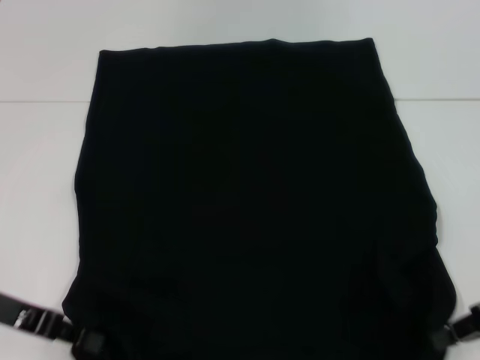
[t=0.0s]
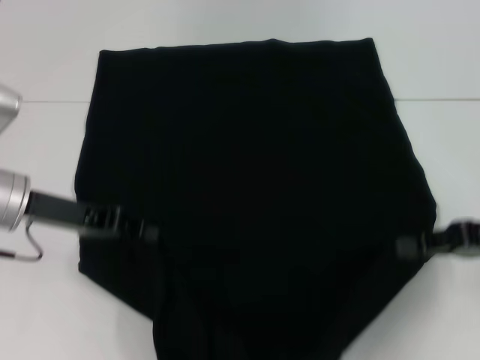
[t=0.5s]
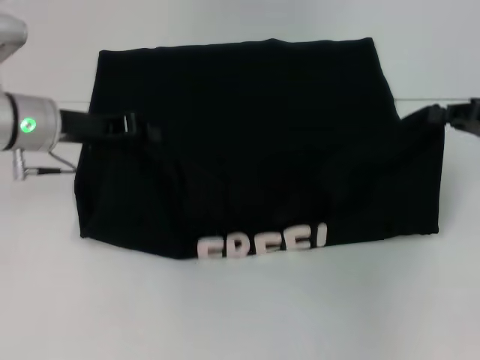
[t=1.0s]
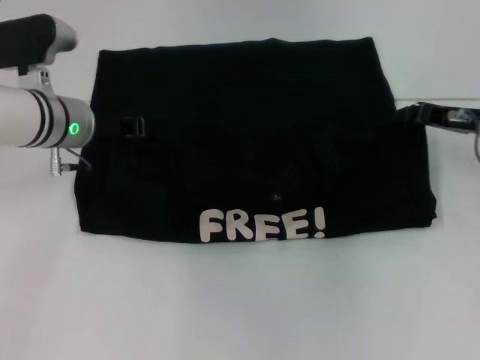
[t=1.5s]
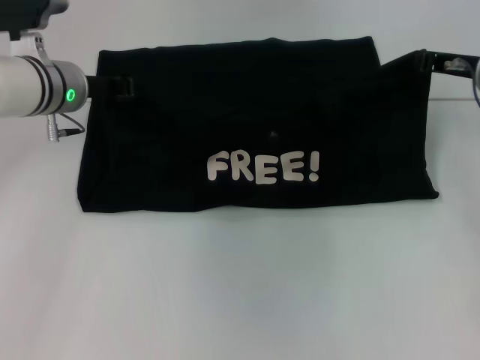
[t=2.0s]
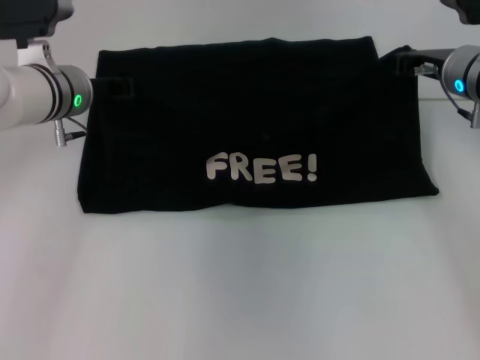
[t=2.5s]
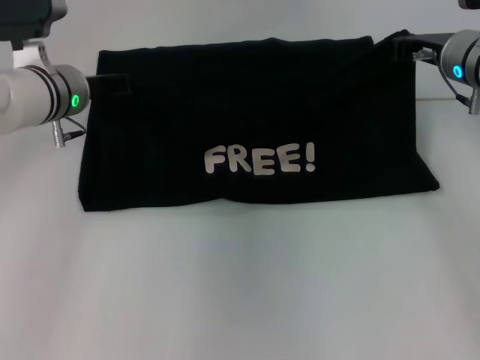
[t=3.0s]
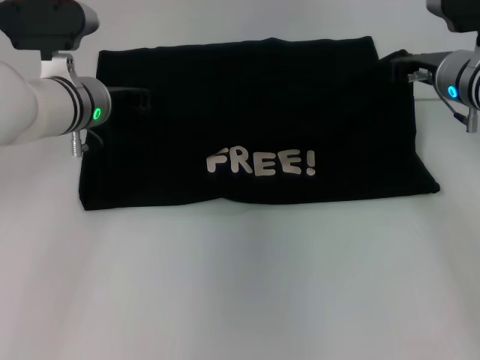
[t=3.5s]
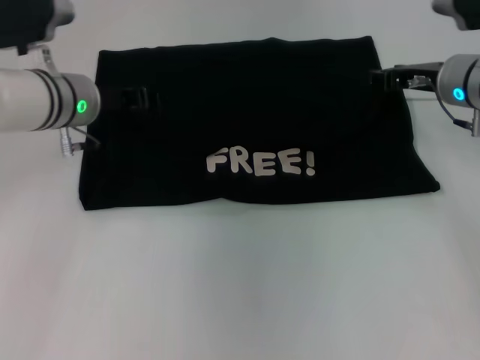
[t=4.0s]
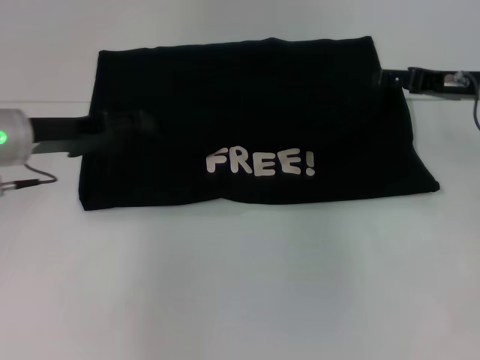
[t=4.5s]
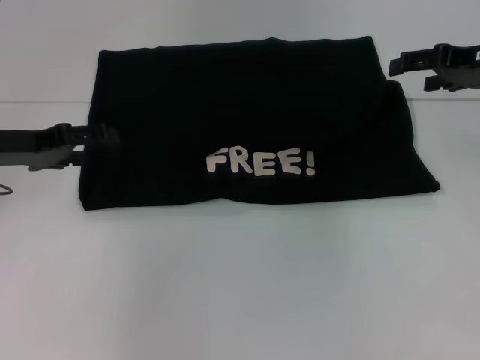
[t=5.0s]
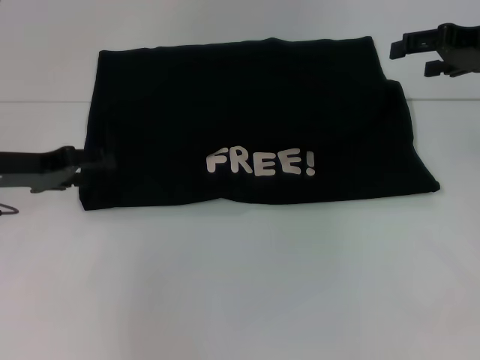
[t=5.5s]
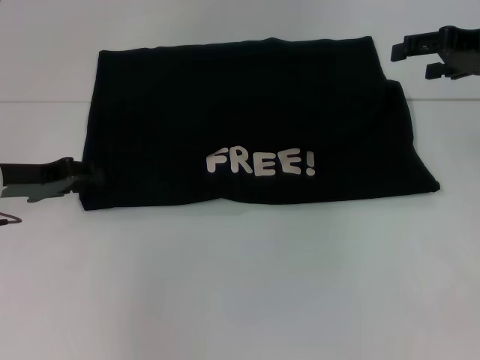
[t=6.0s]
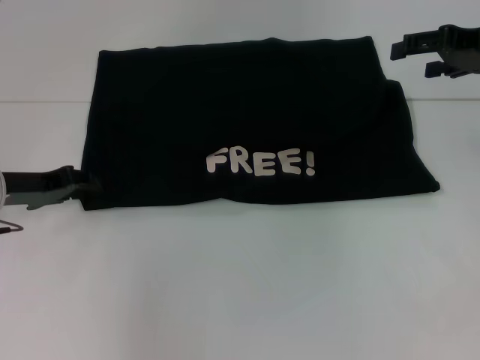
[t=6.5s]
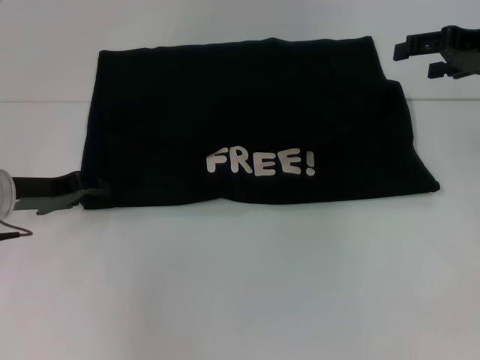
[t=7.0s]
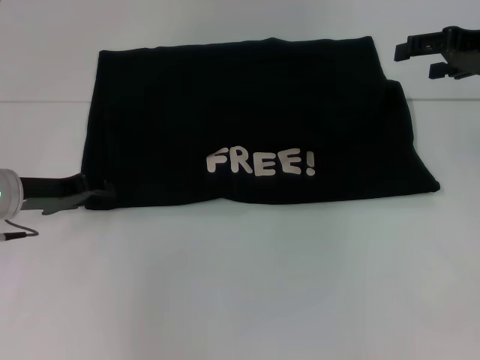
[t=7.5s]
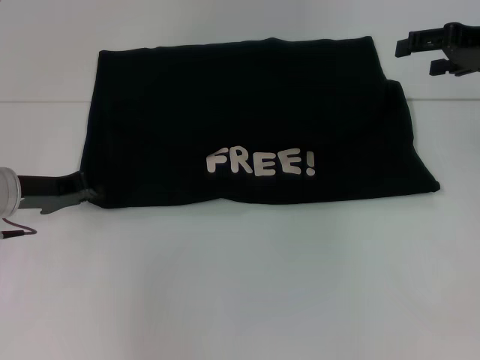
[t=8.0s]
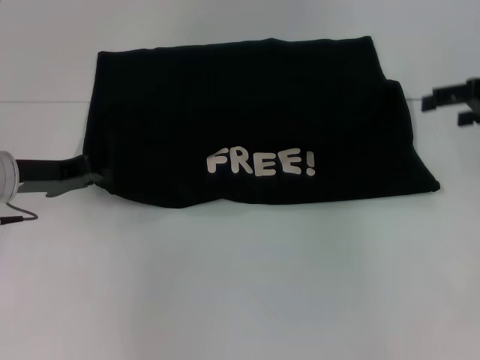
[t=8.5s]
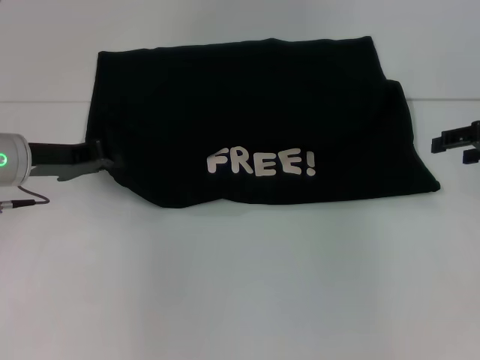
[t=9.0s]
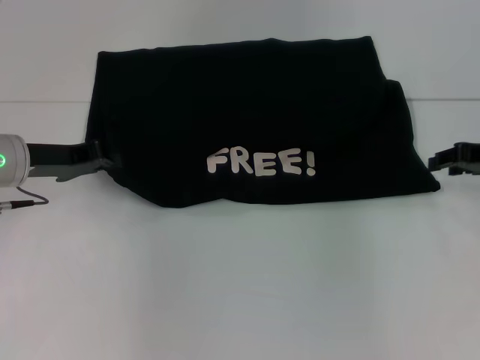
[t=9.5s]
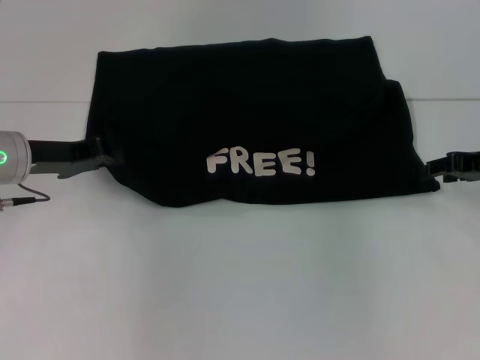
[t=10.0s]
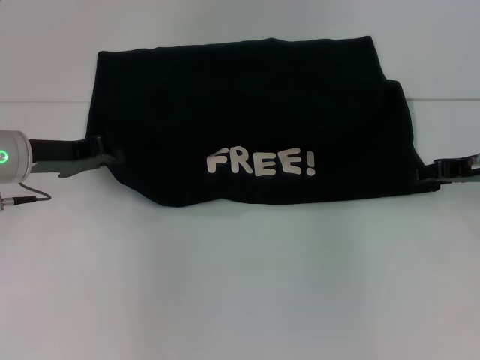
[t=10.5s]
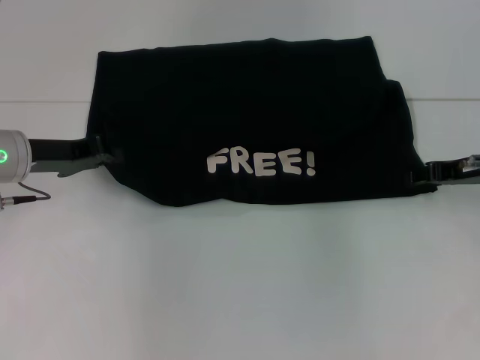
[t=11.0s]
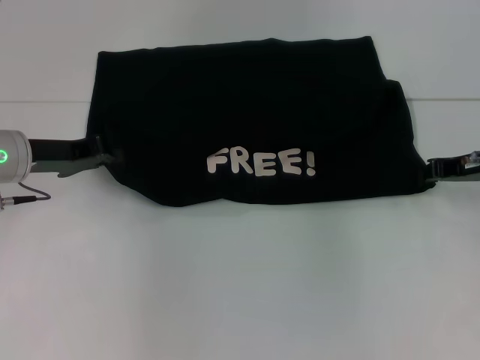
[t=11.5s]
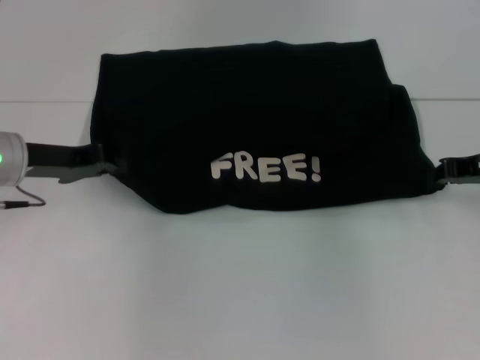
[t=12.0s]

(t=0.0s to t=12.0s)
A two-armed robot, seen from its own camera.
Step, t=0.0s - t=4.0s: Fold the clothes with your left hand.
Step, t=0.0s - t=4.0s: Fold the clothes with your right hand.
t=0.0s - t=2.0s: The right gripper goes some 15 cm forward; the left gripper heads forward and to the right, covering approximately 20 cm.
t=2.0s - t=4.0s: The grippers stay close to where they were, moving slightly.
t=4.0s - t=6.0s: The right gripper heads upward and to the right, covering about 10 cm, and opens its fingers. The left gripper travels to the left, backward and downward by roughly 15 cm, and opens up.
t=6.0s - t=8.0s: The left gripper closes up.
t=8.0s - t=10.0s: The right gripper moves downward, some 10 cm, and closes up.
t=10.0s - t=12.0s: The right gripper closes.

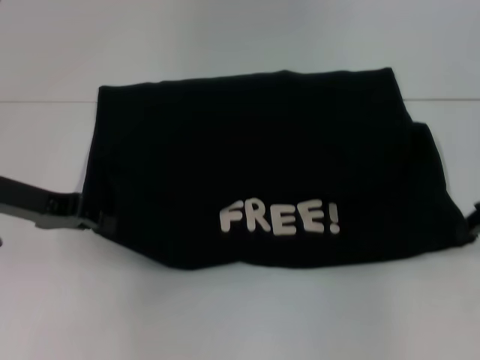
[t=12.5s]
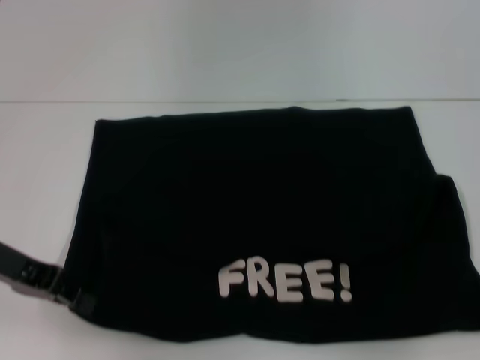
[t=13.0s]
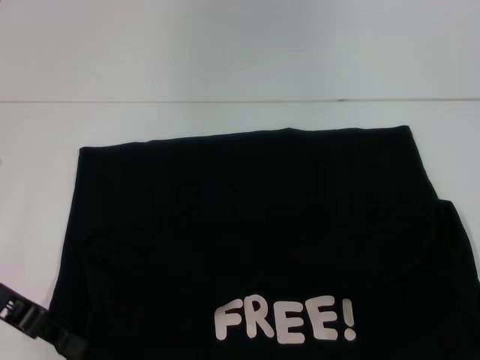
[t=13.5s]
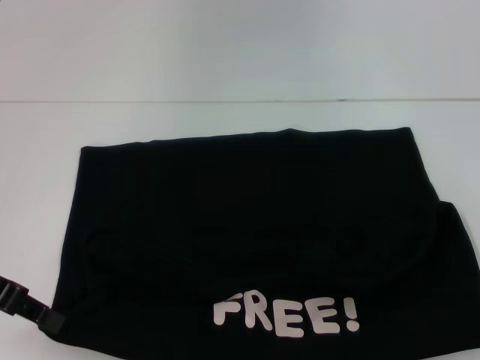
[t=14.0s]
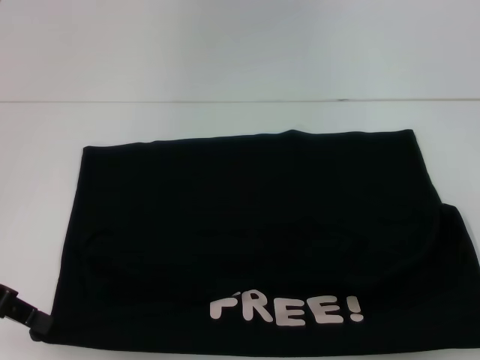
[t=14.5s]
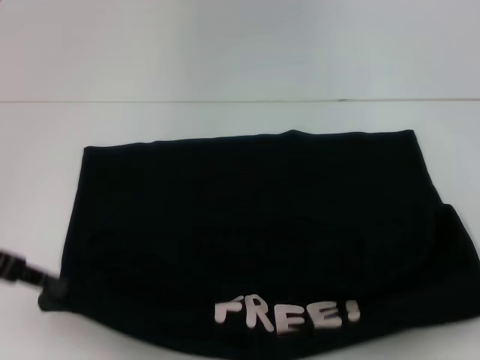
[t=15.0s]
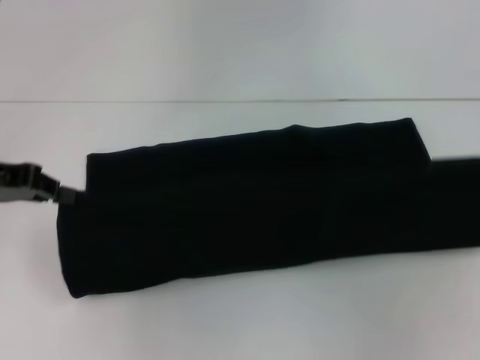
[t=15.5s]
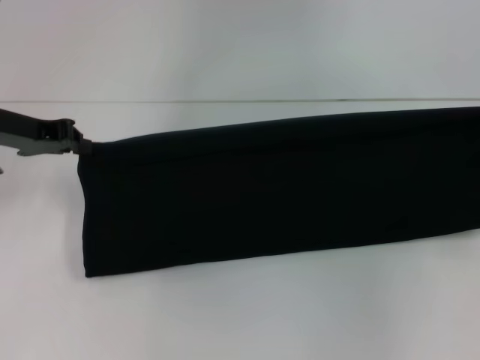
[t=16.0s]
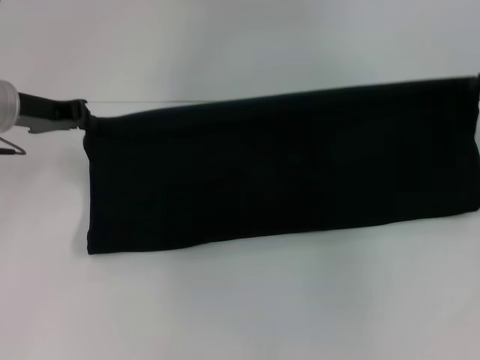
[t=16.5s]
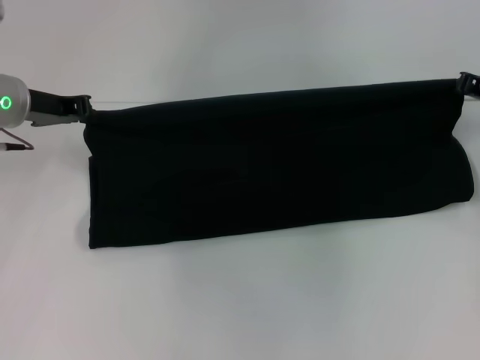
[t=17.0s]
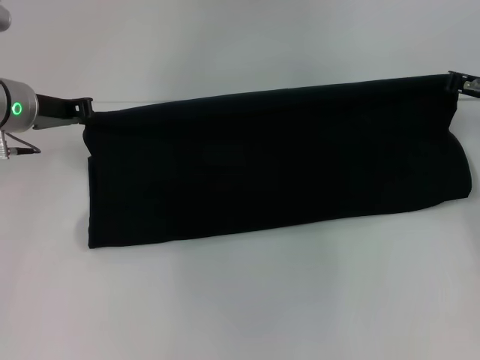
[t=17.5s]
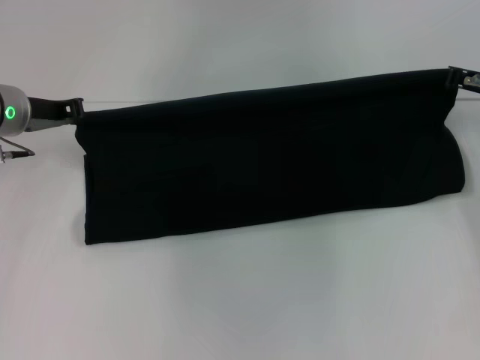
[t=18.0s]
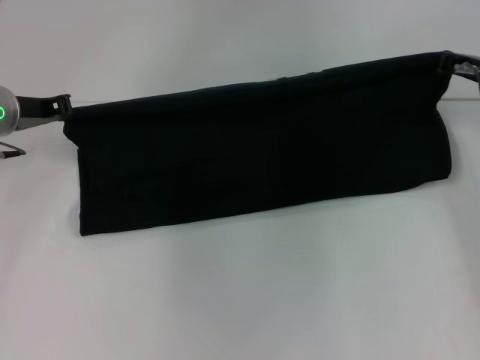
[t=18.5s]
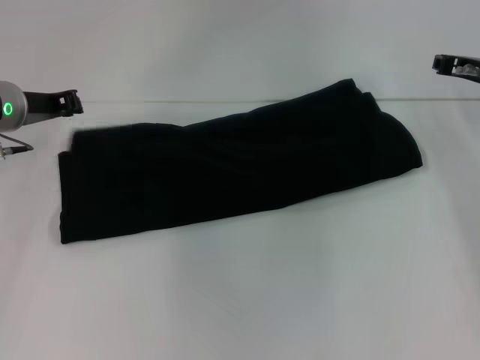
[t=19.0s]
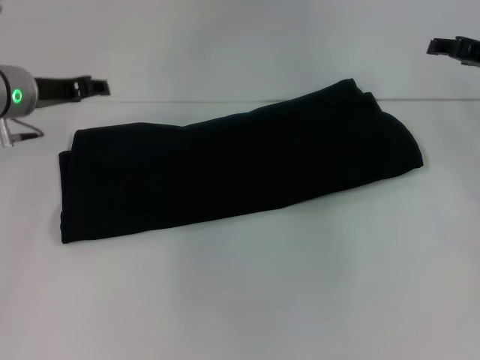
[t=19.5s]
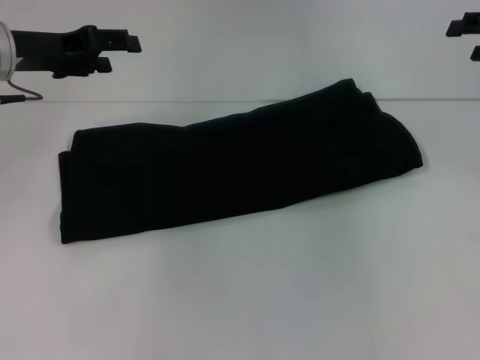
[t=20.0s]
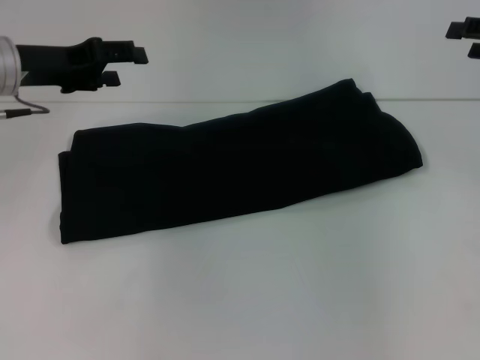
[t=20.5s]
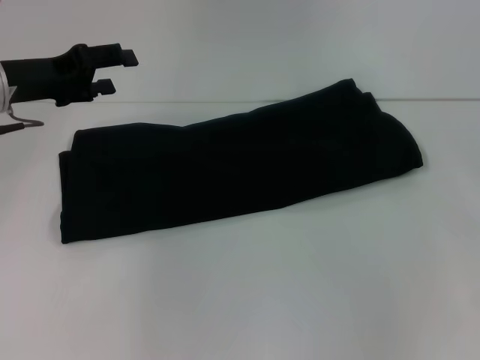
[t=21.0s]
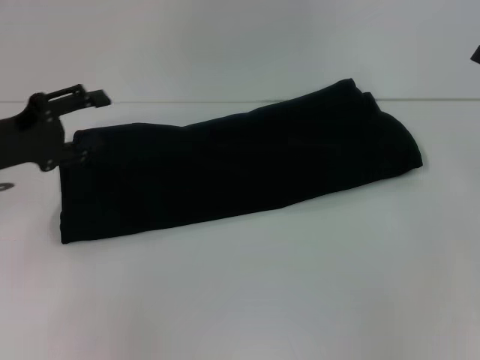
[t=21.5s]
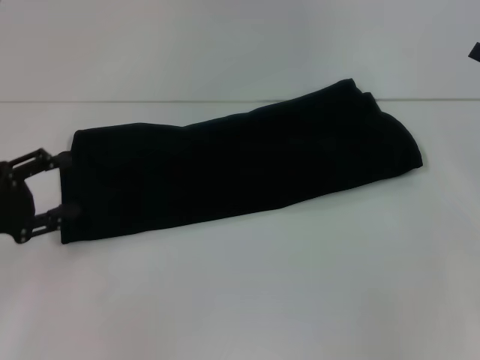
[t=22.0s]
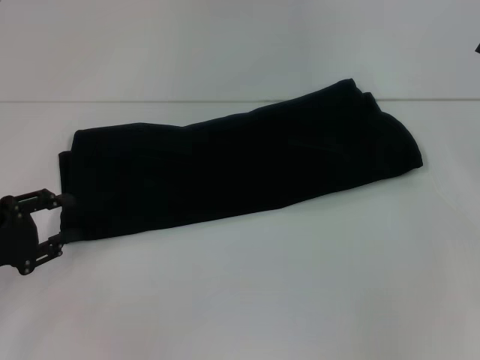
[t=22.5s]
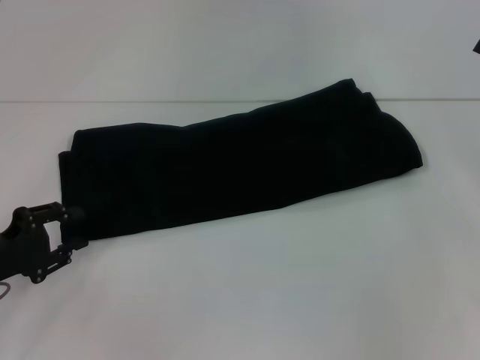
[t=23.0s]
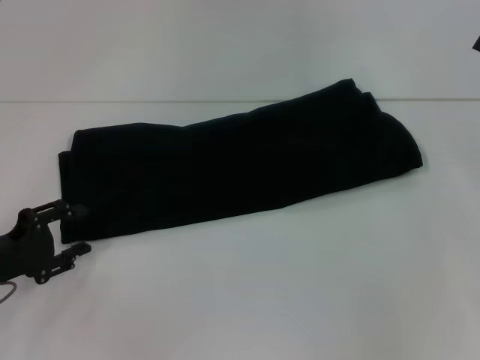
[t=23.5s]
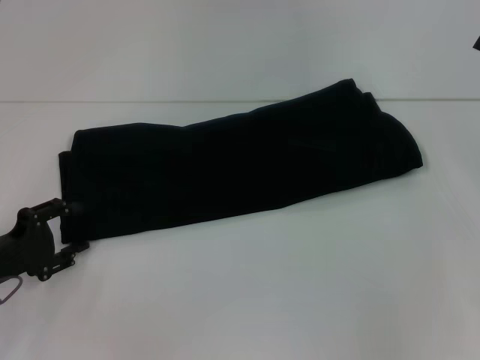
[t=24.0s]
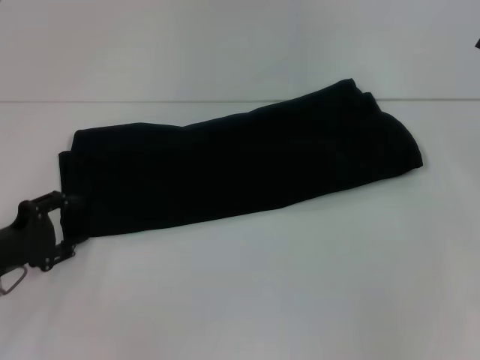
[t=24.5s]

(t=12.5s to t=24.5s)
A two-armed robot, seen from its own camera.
Step, t=13.5s - t=19.5s: Fold the clothes with your right hand.
t=12.5s - t=14.5s: The left gripper travels backward by about 5 cm. Meanwhile the right gripper shifts some 10 cm backward and to the right.
t=14.5s - t=16.5s: The right gripper travels forward by approximately 15 cm; the left gripper moves forward and to the right, approximately 15 cm.
t=16.5s - t=18.5s: The right gripper goes roughly 5 cm to the left.
t=18.5s - t=20.5s: The left gripper travels upward by some 5 cm, and opens. Meanwhile the right gripper shifts some 10 cm to the right and upward, and opens its fingers.
t=20.5s - t=22.5s: The left gripper is displaced backward, downward and to the left by approximately 20 cm.
t=22.5s - t=24.5s: There are only small adjustments of the grippers.

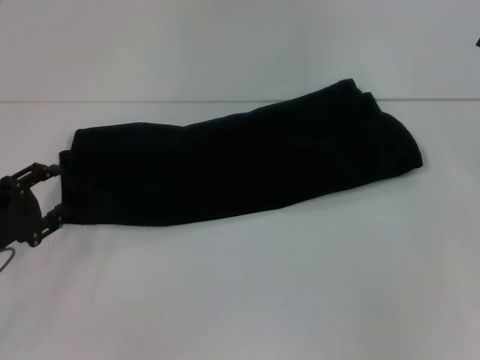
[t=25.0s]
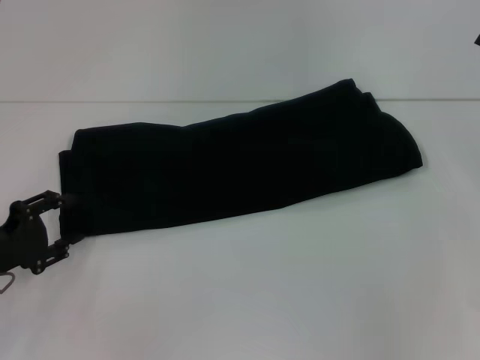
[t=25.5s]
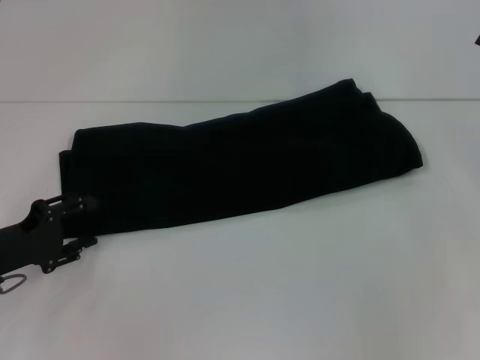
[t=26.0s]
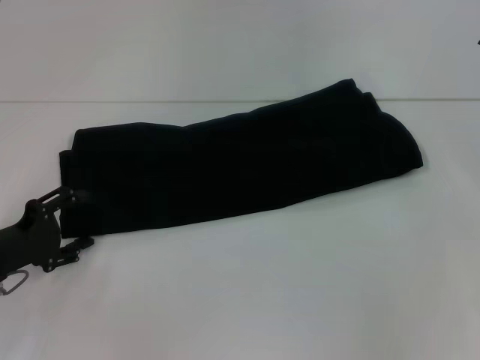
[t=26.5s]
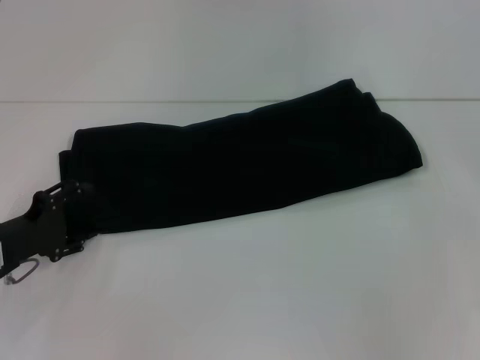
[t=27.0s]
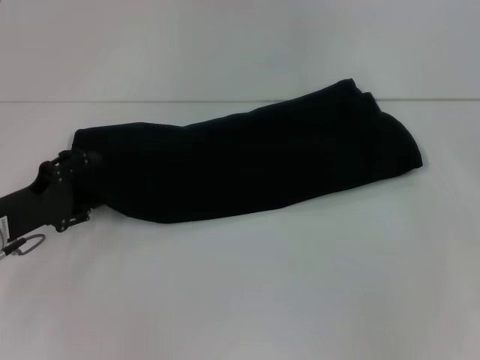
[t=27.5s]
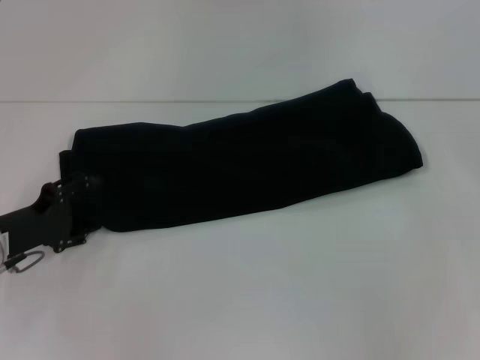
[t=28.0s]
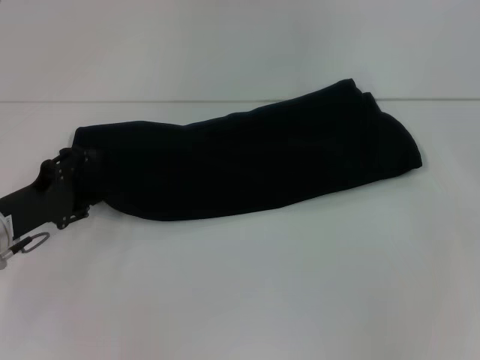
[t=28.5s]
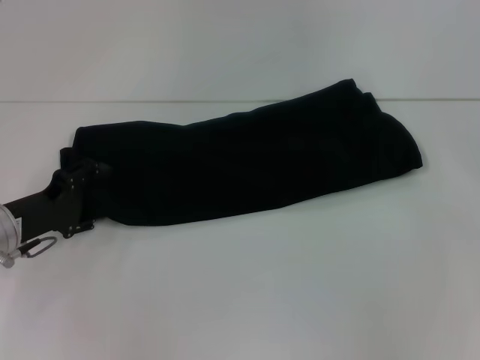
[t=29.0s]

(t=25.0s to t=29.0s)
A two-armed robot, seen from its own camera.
t=25.0s - t=29.0s: The grippers stay close to where they were, moving slightly.
